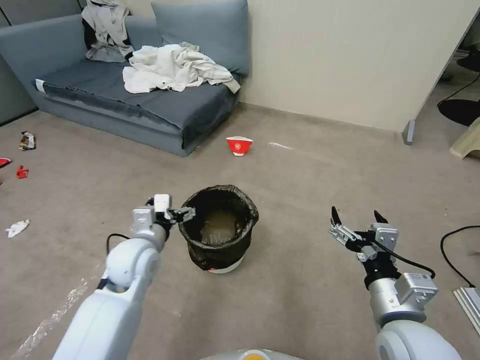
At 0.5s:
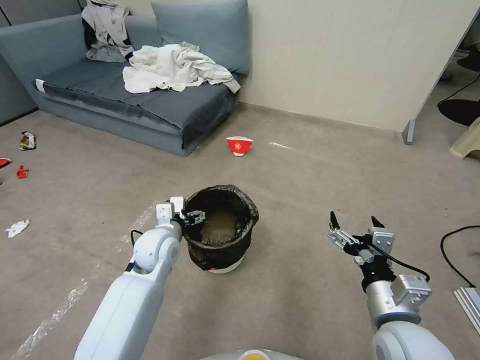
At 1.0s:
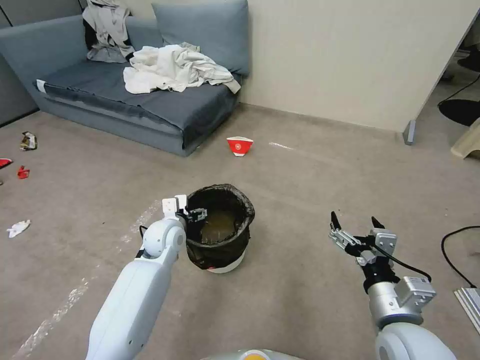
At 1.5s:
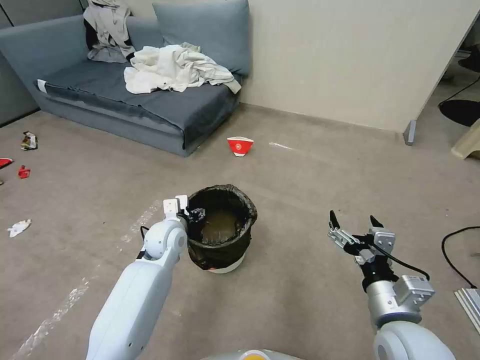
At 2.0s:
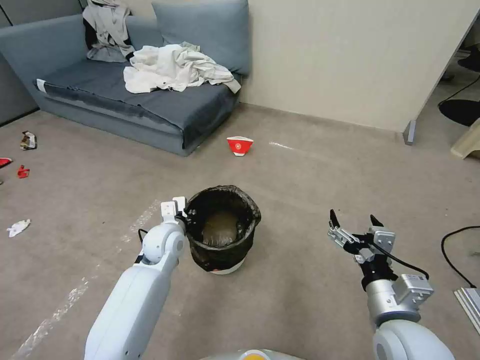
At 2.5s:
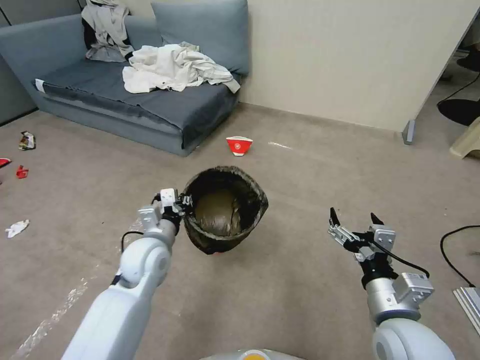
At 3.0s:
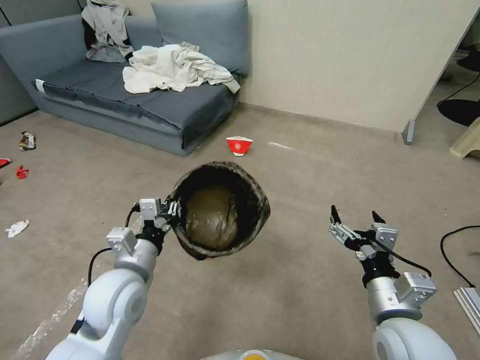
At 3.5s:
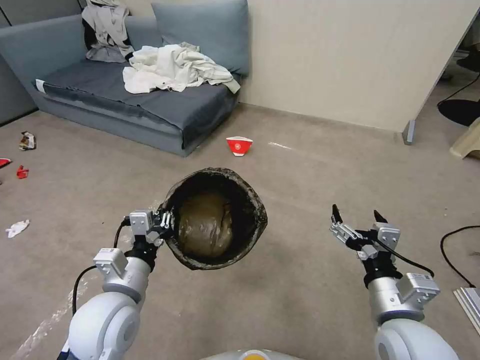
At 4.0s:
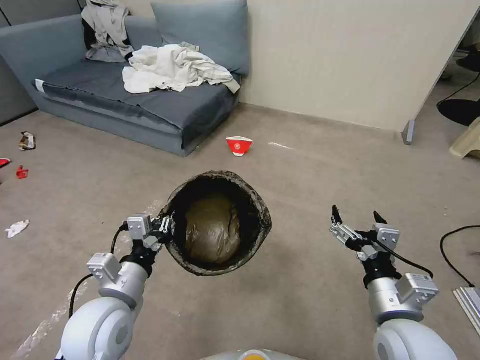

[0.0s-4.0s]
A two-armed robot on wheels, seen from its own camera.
Task of the whole recording: Pick up the trash can from the floor.
0.0s to 2.0s: The left gripper is displaced forward and downward by about 10 cm, and closes up.
2.0s to 4.0s: The left gripper shifts some 20 cm backward.
